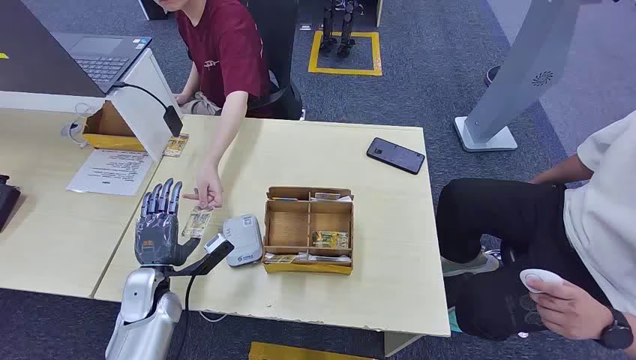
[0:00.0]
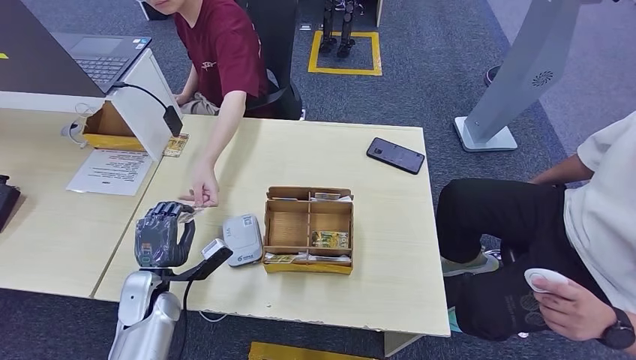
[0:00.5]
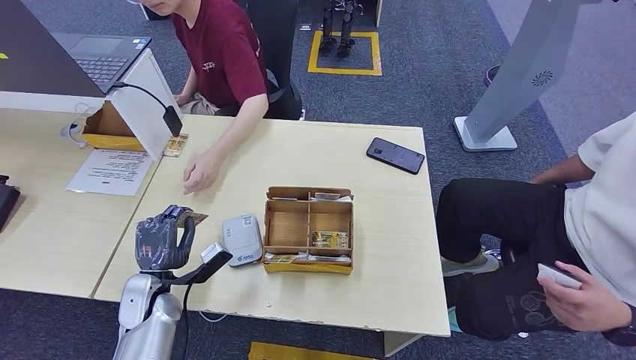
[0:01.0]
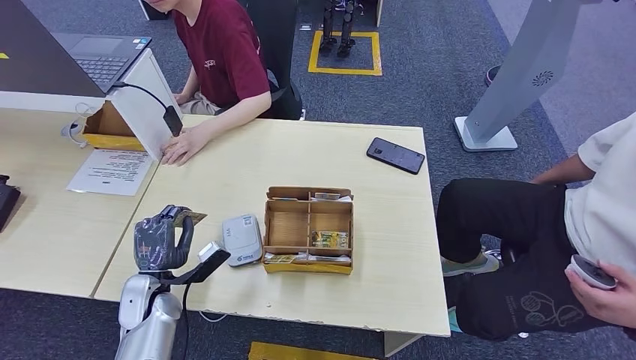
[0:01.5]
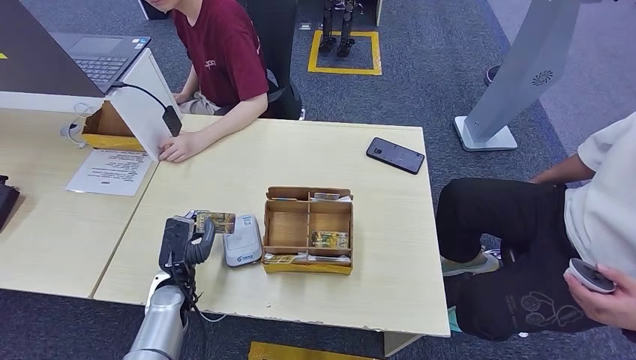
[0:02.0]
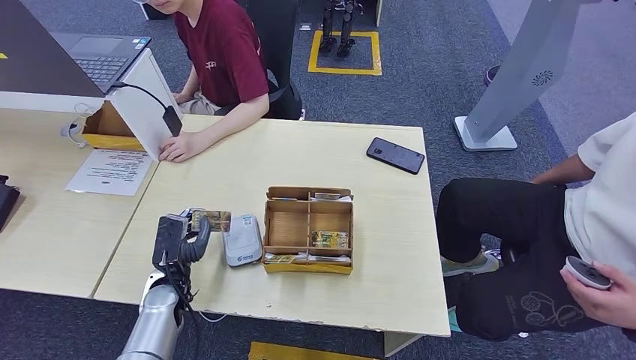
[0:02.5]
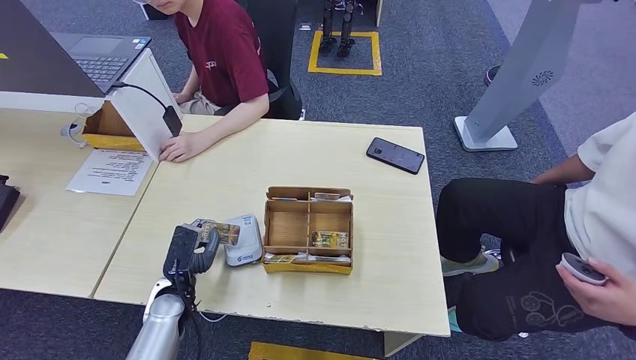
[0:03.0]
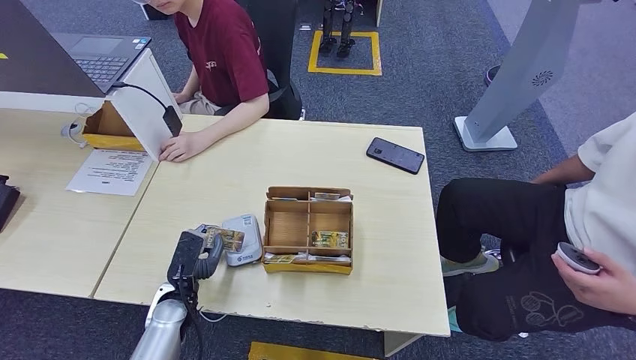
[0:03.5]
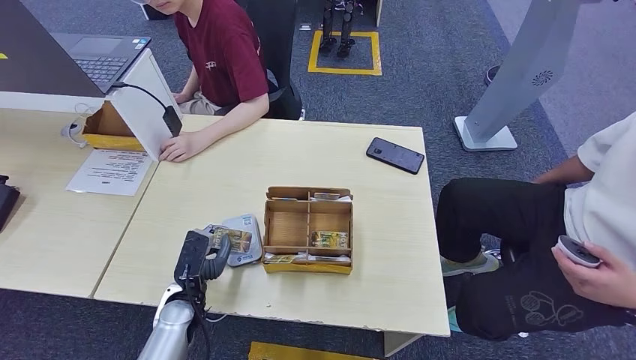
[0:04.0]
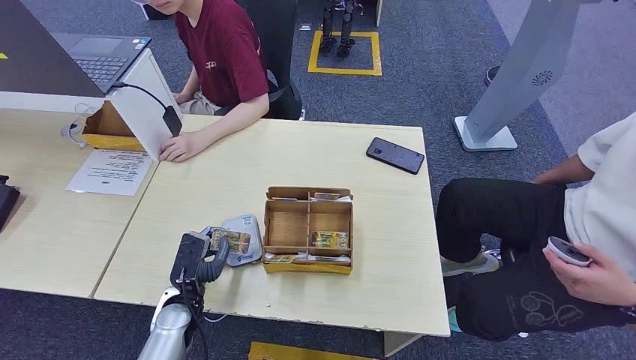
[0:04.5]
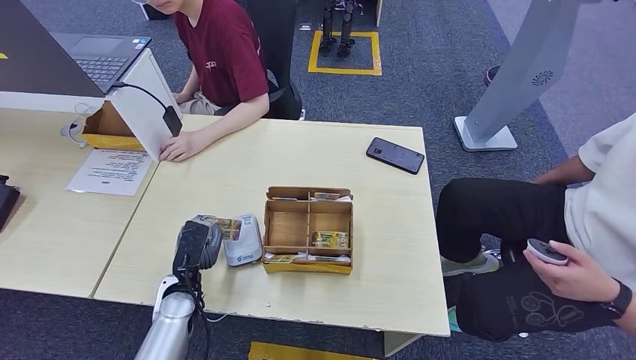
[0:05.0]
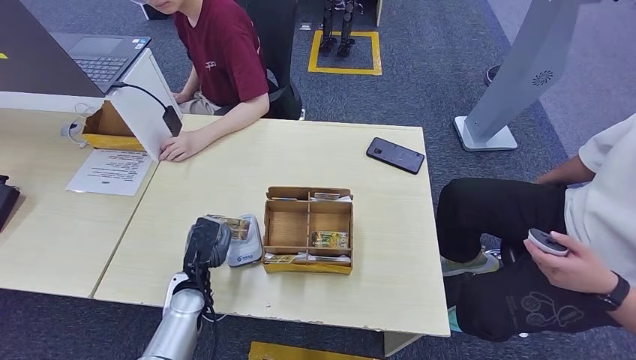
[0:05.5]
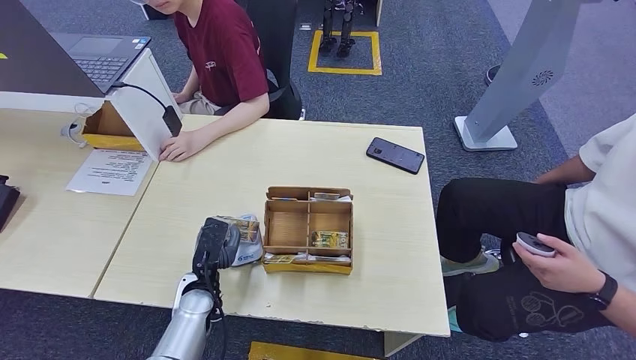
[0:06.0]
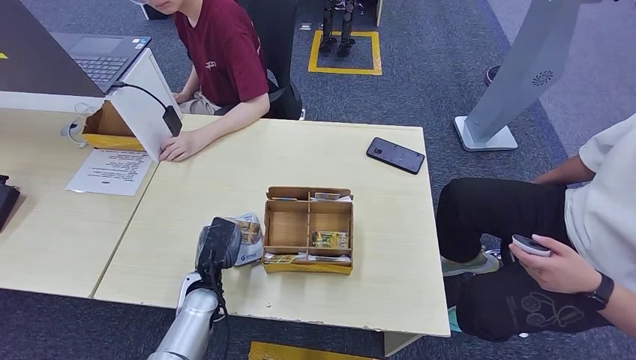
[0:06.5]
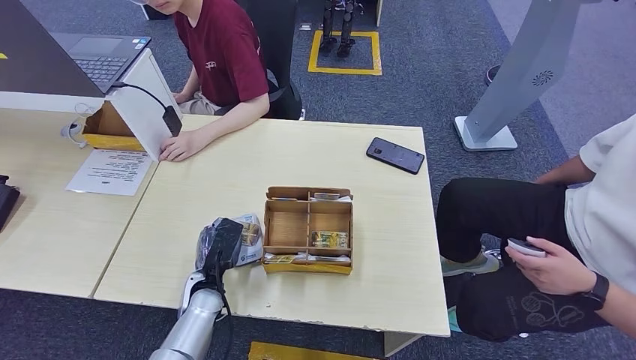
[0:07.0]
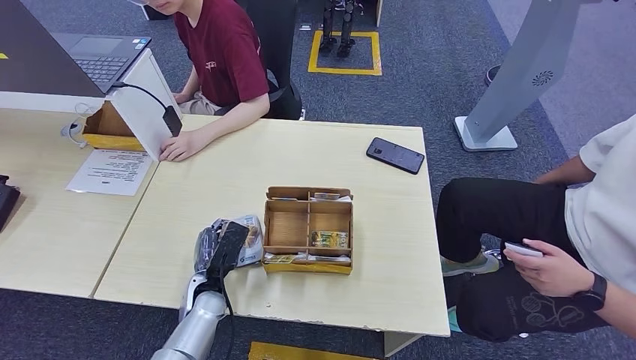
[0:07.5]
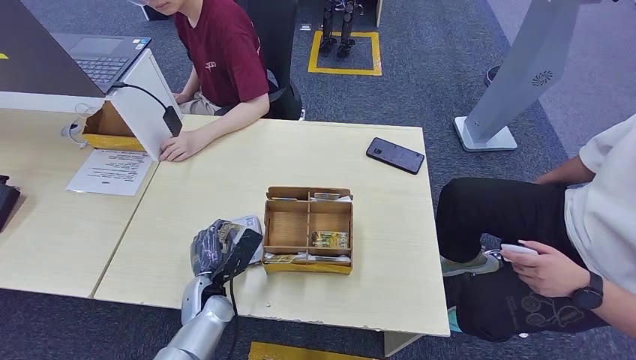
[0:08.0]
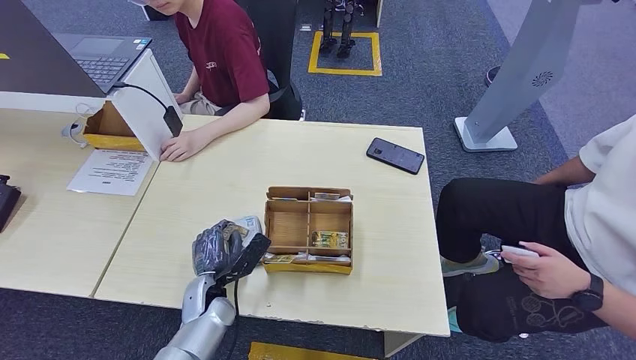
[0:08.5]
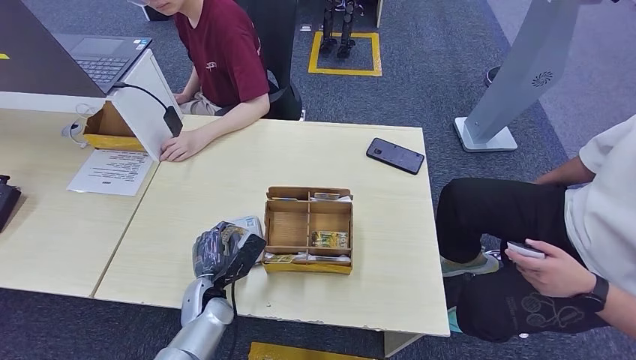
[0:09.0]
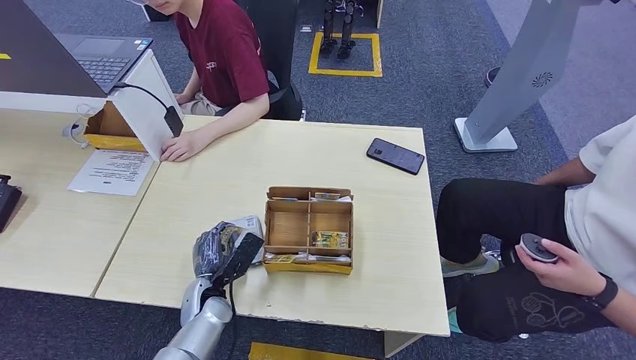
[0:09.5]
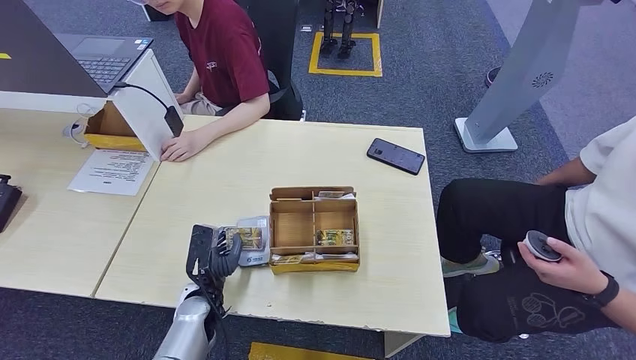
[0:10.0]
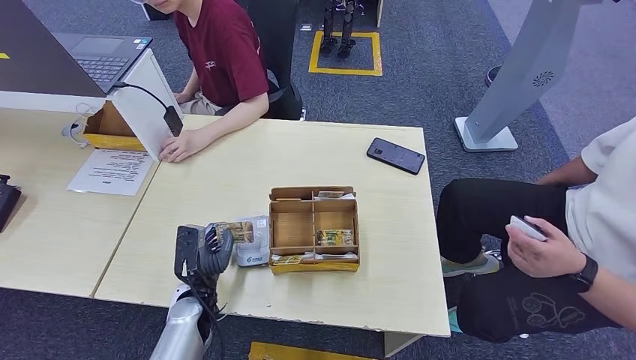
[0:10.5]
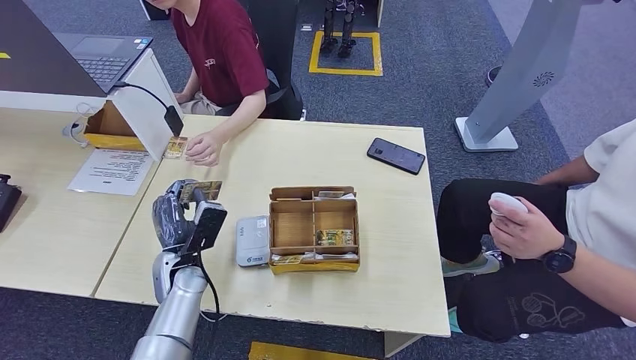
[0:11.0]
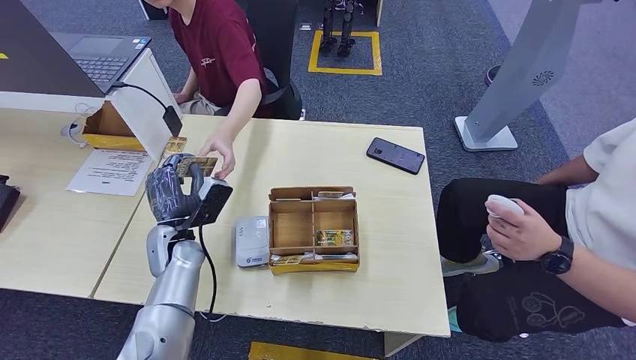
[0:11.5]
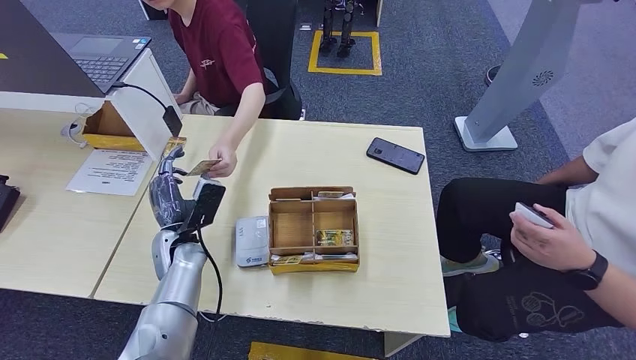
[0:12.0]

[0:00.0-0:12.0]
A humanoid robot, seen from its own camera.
Step, 0:00.0 to 0:00.5: Take the ID card from the person's hand.
Step, 0:01.5 to 0:07.0: Place the ID card on the card reader.
Step, 0:08.0 to 0:11.5: Hand the ID card to the person.
0:02.0 to 0:06.0: There are only small adjustments of the hands.
0:10.0 to 0:12.0: The left hand heads upward and forward, covering about 10 cm.

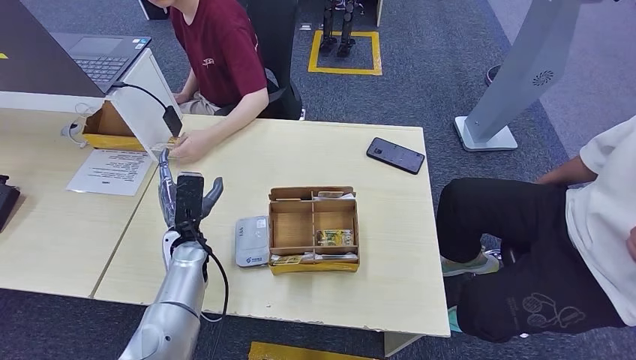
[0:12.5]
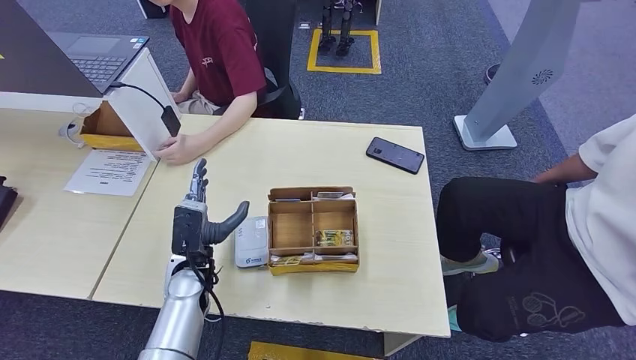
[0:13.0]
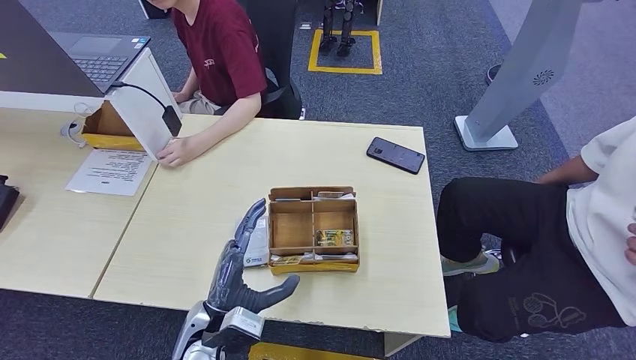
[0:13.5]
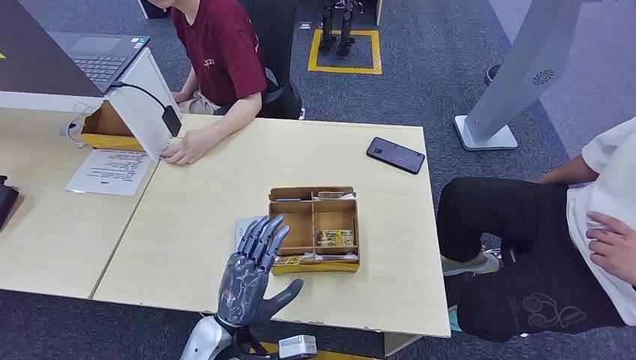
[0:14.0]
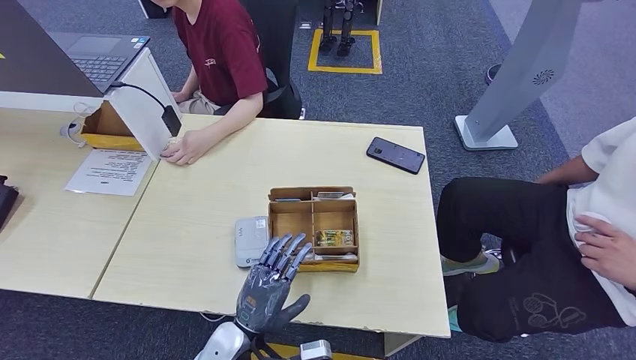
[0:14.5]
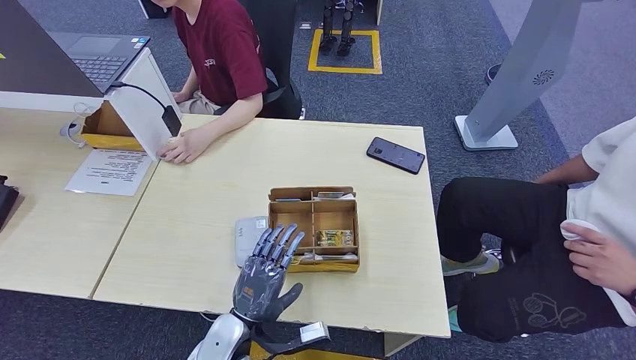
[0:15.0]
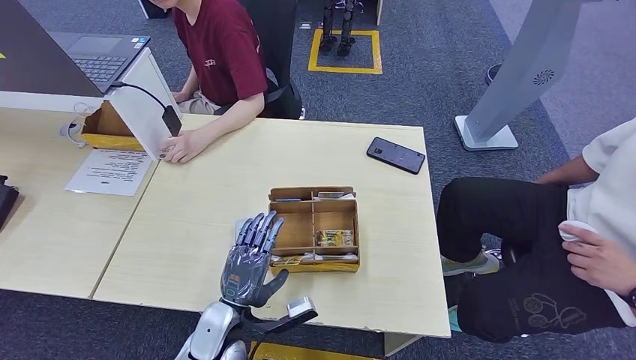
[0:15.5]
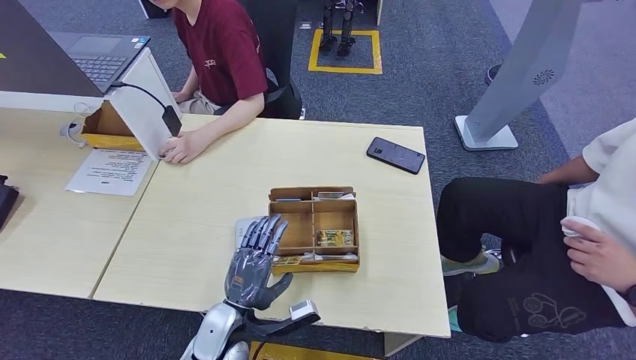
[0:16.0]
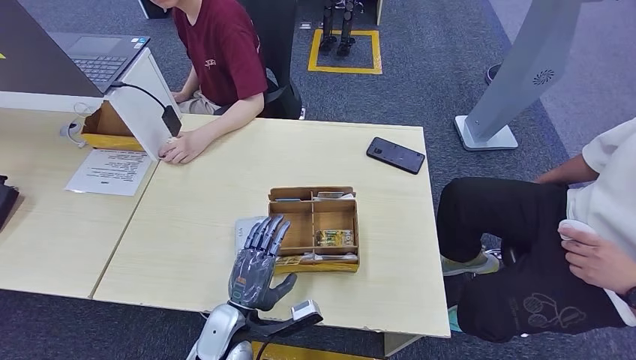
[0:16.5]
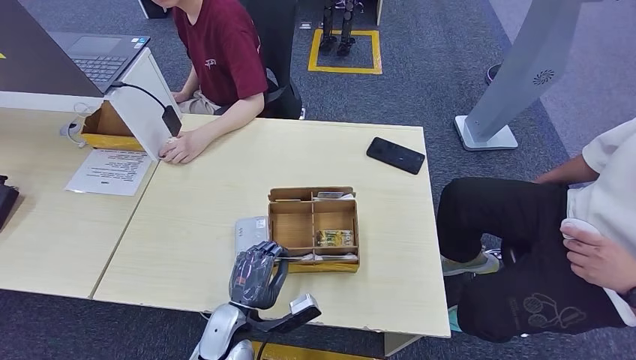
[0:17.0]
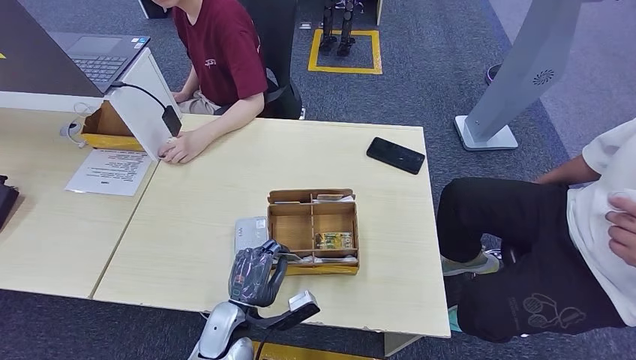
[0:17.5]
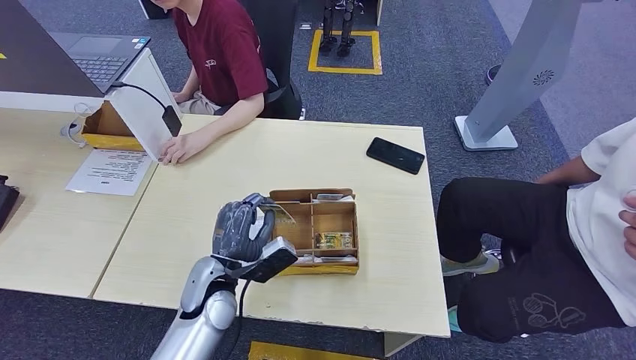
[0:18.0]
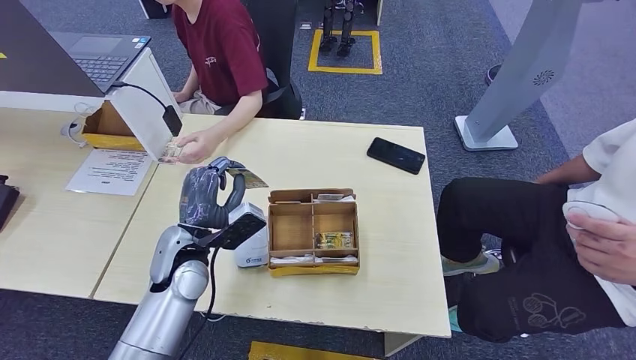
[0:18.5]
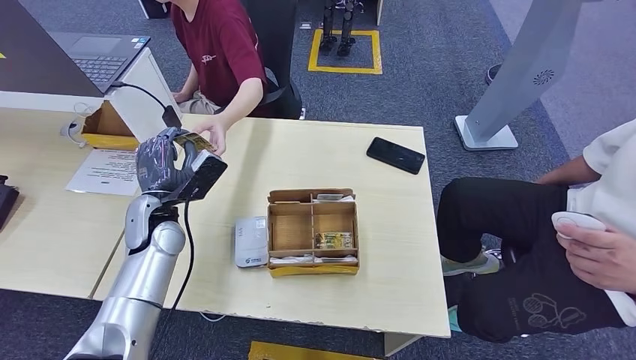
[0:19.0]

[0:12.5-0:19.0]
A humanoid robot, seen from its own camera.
Step, 0:16.5 to 0:18.5: Pick up the room key from the key card box.
0:12.5 to 0:14.5: The left hand moves backward and to the right, roughly 20 cm.
0:14.5 to 0:17.0: The hands move only a little.
0:17.0 to 0:19.0: The left hand moves forward, upward and to the left, approximately 25 cm.
